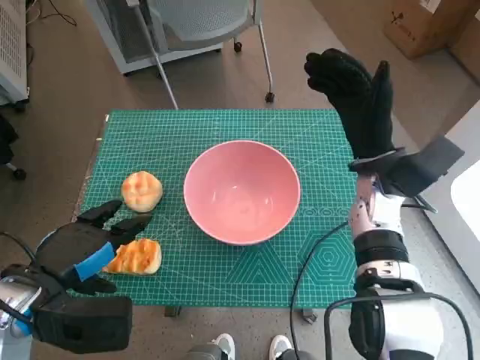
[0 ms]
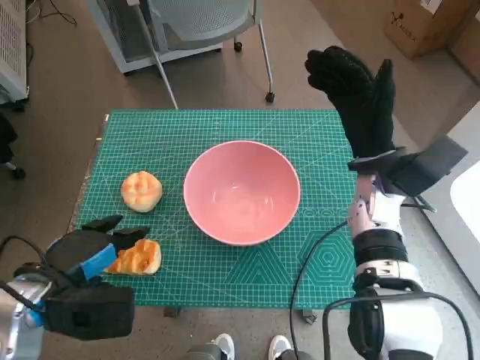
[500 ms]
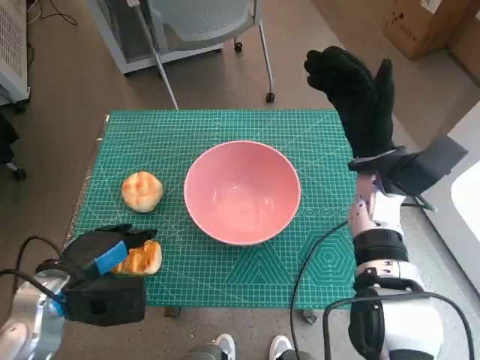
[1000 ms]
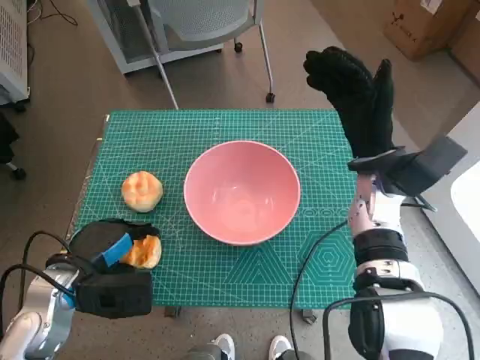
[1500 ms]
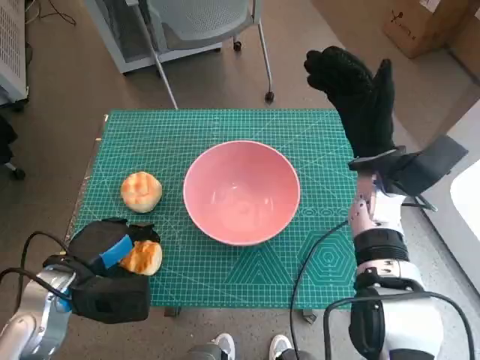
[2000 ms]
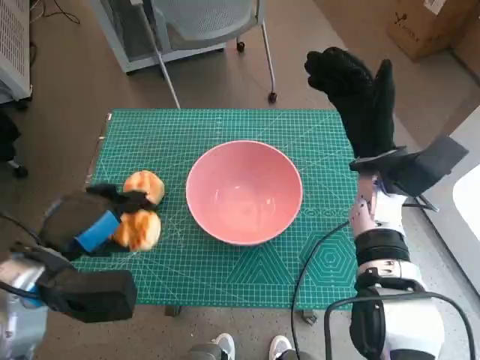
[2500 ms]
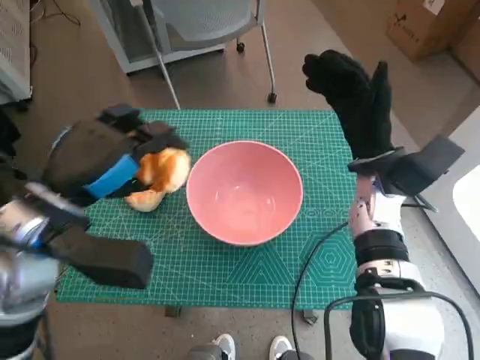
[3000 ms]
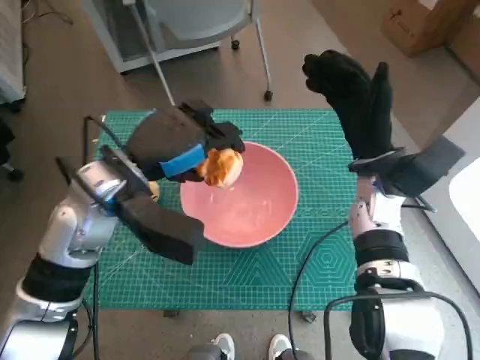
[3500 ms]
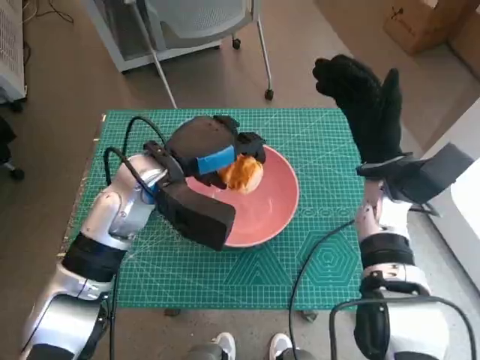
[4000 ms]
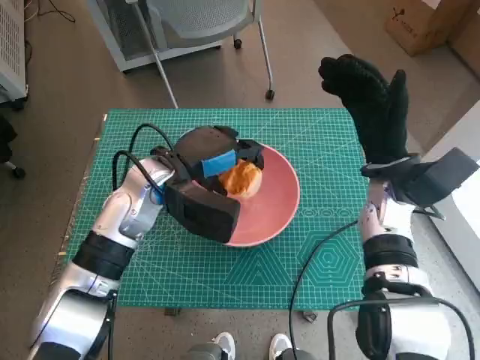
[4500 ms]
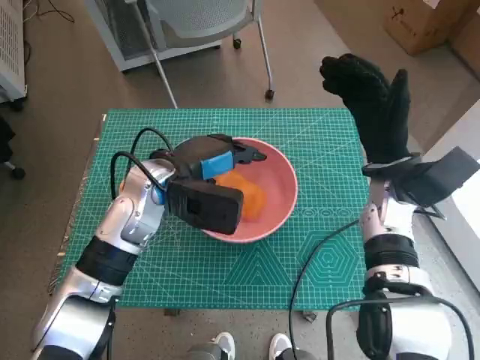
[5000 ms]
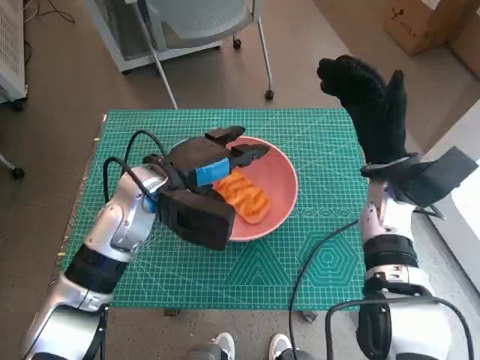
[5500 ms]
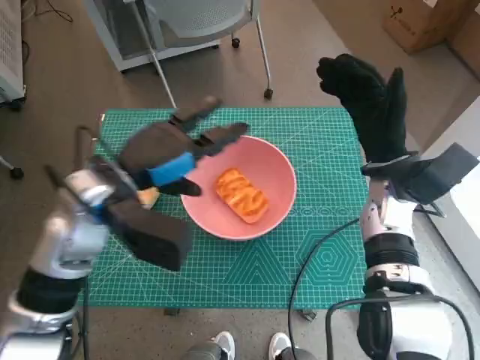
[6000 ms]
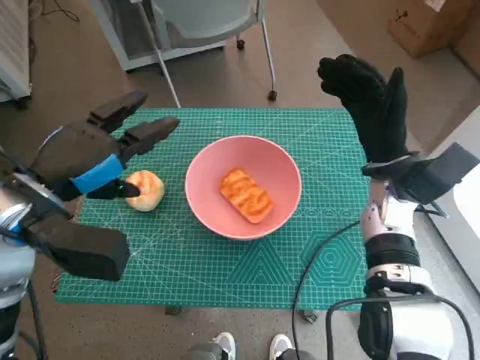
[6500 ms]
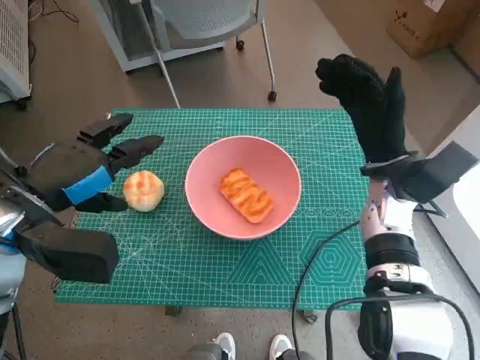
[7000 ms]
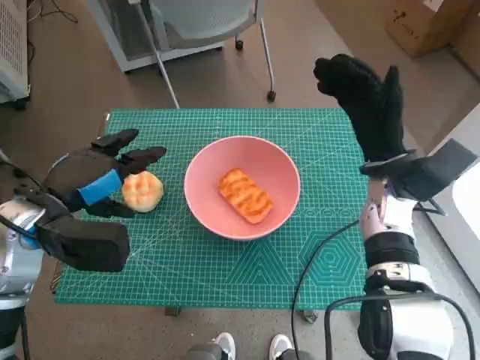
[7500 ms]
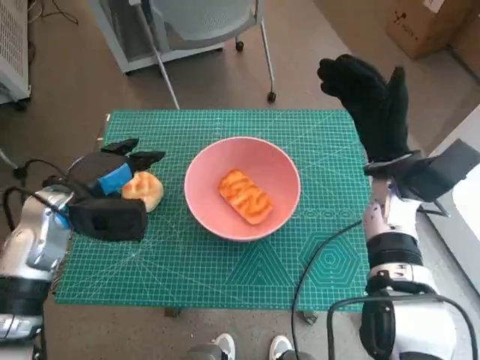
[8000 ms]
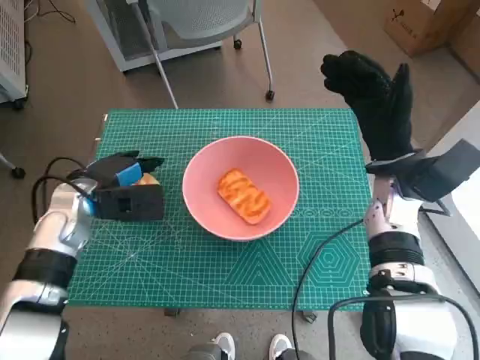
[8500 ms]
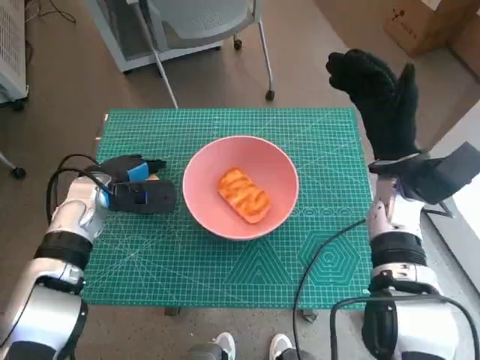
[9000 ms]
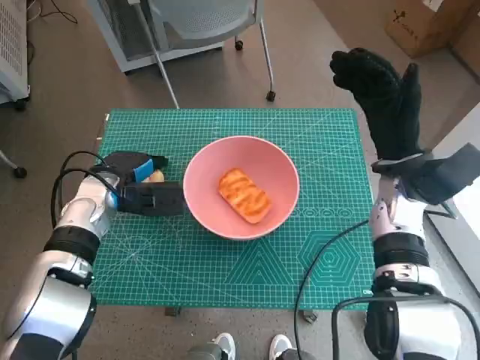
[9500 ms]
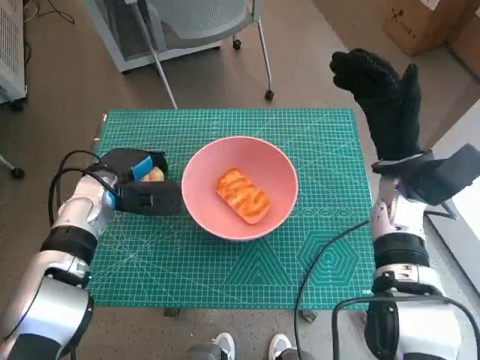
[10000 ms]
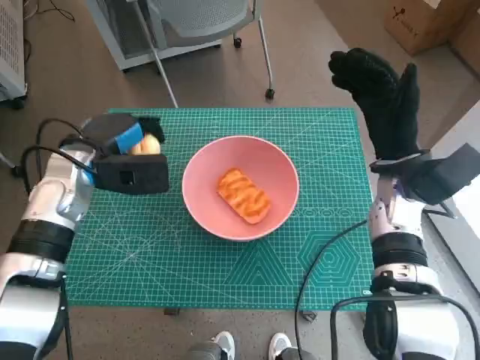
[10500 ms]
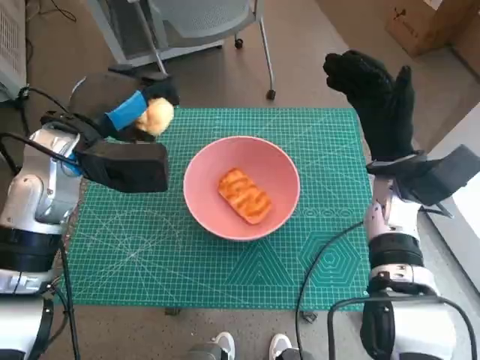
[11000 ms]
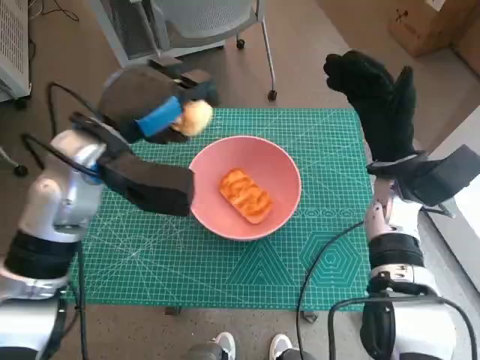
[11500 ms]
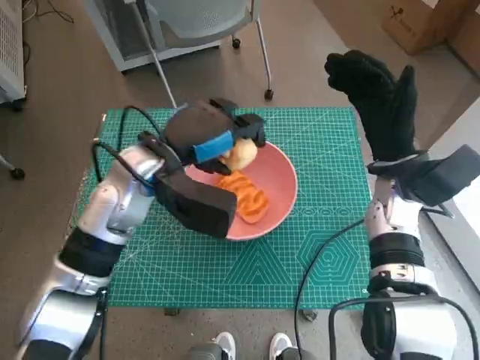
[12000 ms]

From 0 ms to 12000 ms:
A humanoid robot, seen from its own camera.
Step, from 2000 ms to 5000 ms: Place the long bread in pink bowl with left hand.
Step, from 5500 ms to 9500 ms: Grasp the round bread with left hand.
From 0 ms to 2000 ms: The left hand is displaced downward by roughly 5 cm.
From 2000 ms to 4000 ms: The left hand moves forward, to the right and upward, some 20 cm.
From 4000 ms to 6000 ms: The left hand shifts by some 5 cm.
From 6000 ms to 8000 ms: The left hand travels to the left and downward by some 10 cm.
From 8000 ms to 10000 ms: The left hand goes about 5 cm forward.
From 10000 ms to 12000 ms: The left hand heads to the right and upward, covering approximately 15 cm.

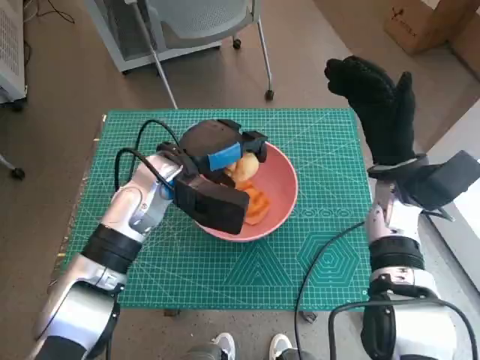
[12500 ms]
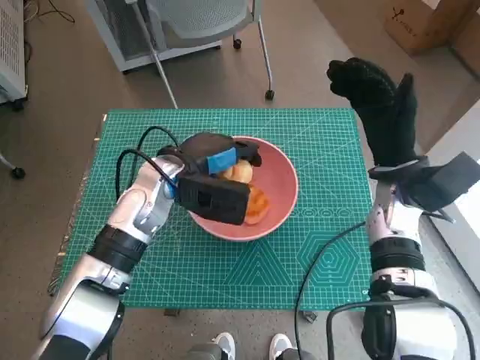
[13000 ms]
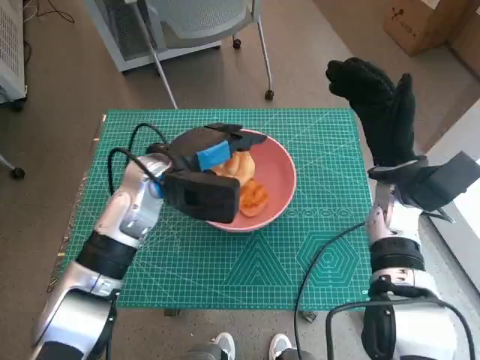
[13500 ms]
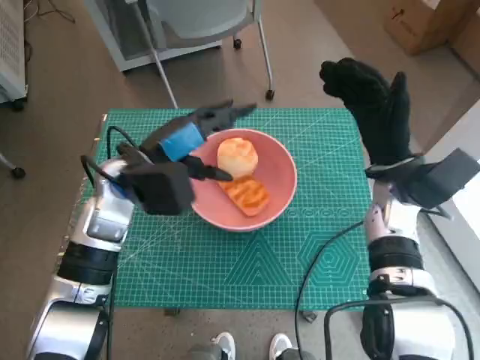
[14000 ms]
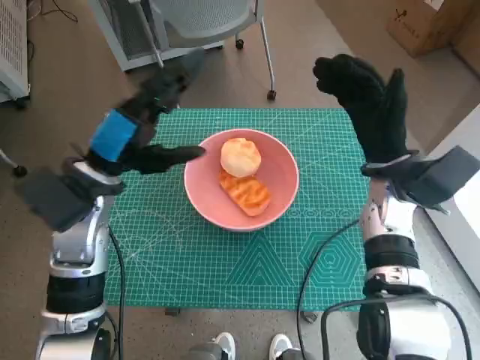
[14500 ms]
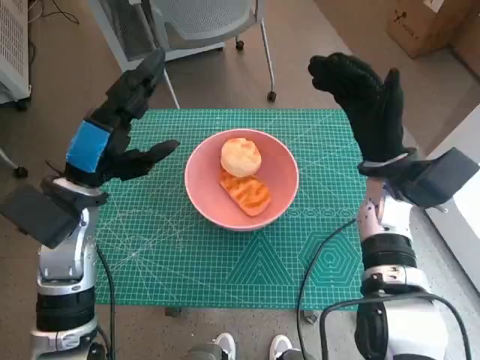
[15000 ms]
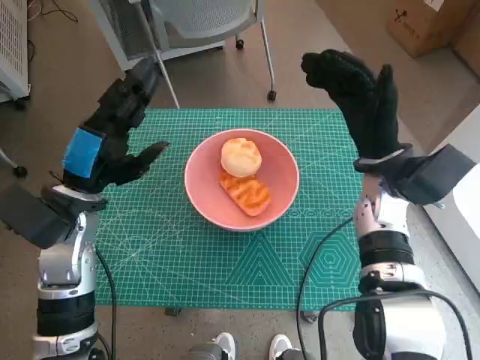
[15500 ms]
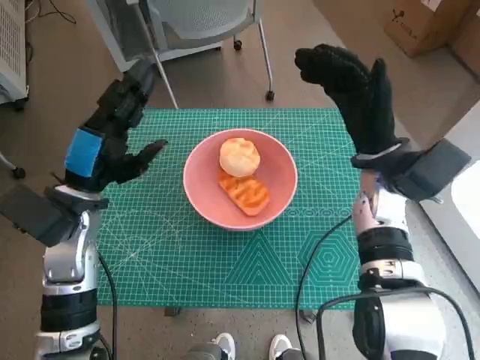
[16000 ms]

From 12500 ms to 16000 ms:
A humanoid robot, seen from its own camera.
From 12500 ms to 14500 ms: The left hand goes some 5 cm to the left.
